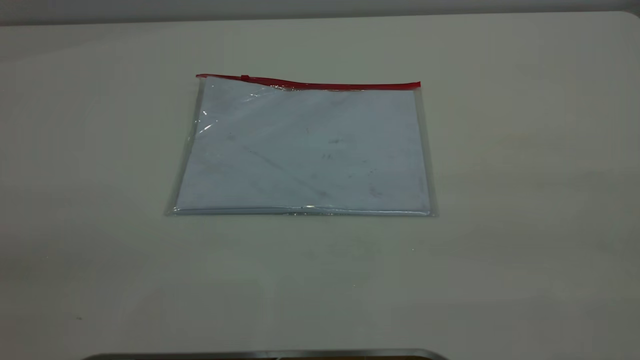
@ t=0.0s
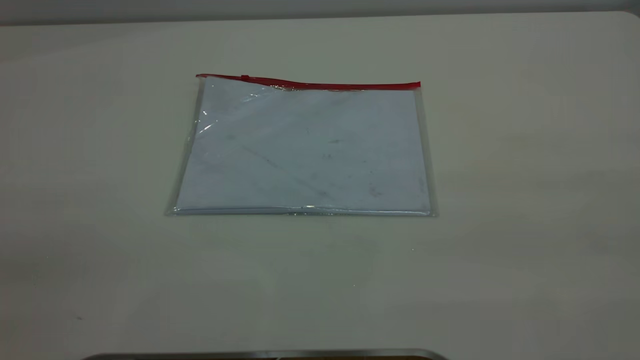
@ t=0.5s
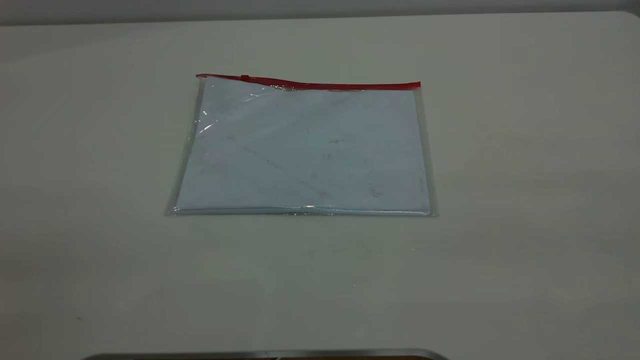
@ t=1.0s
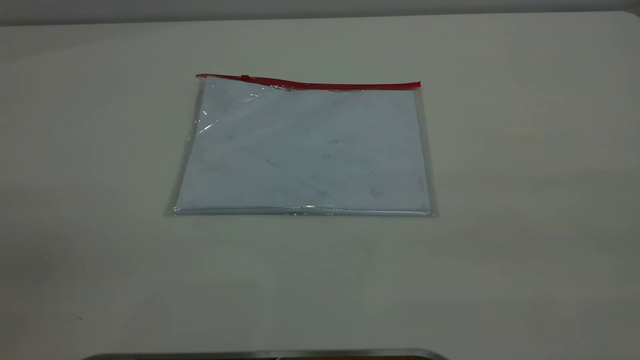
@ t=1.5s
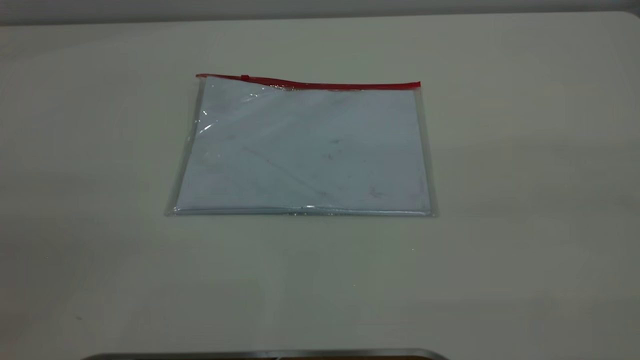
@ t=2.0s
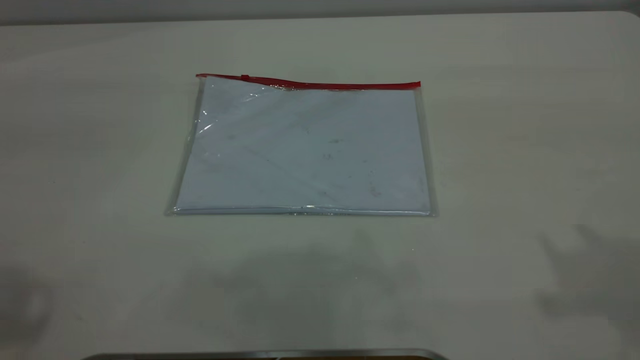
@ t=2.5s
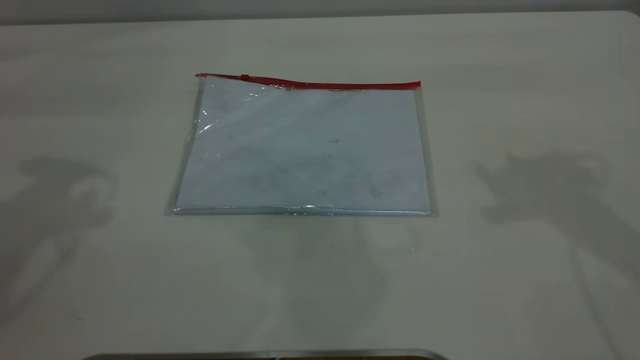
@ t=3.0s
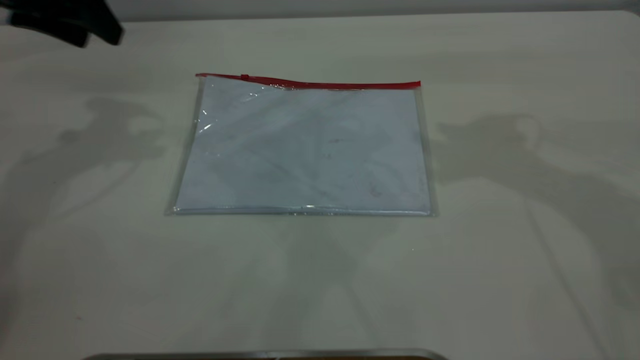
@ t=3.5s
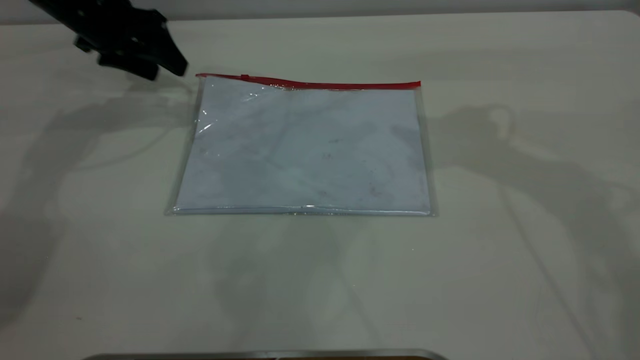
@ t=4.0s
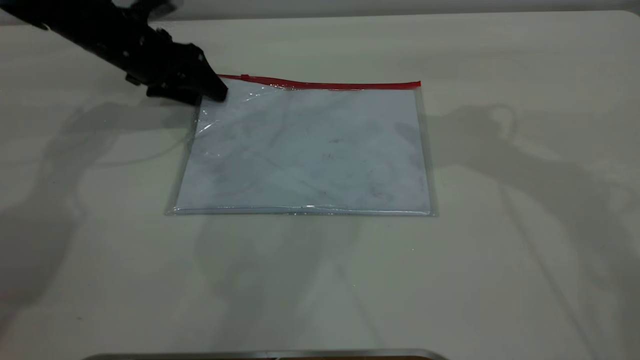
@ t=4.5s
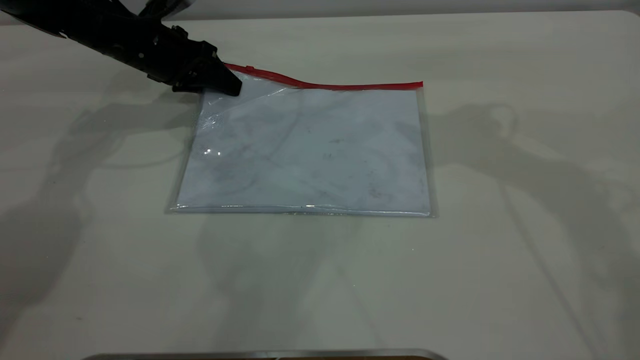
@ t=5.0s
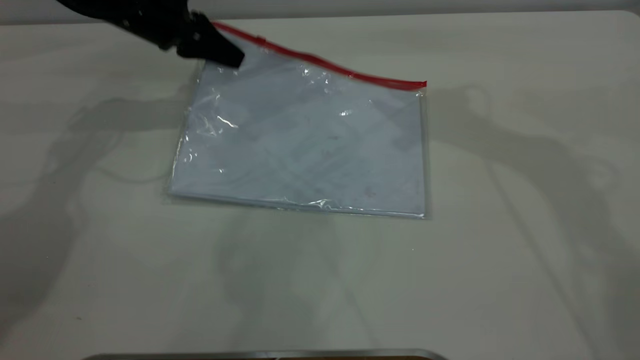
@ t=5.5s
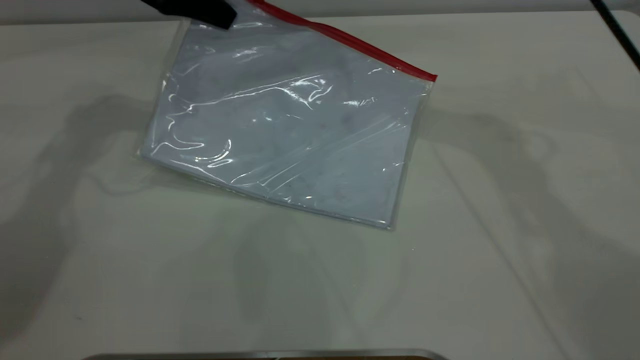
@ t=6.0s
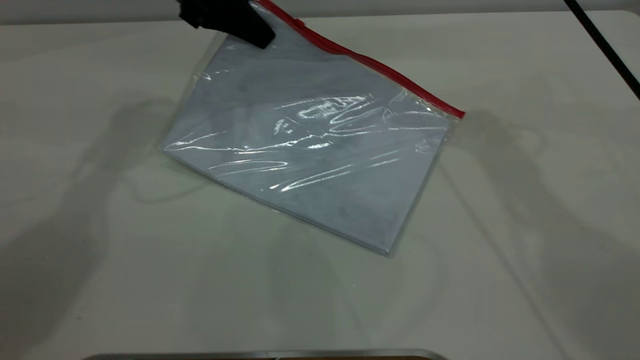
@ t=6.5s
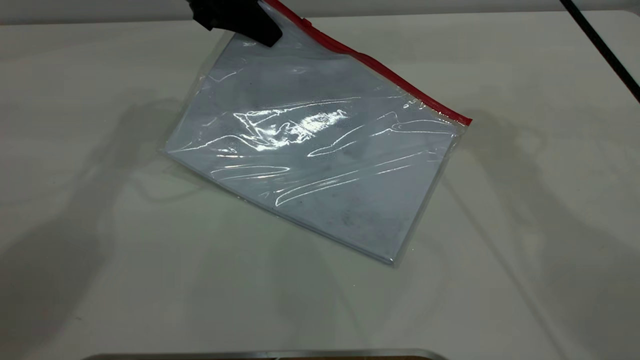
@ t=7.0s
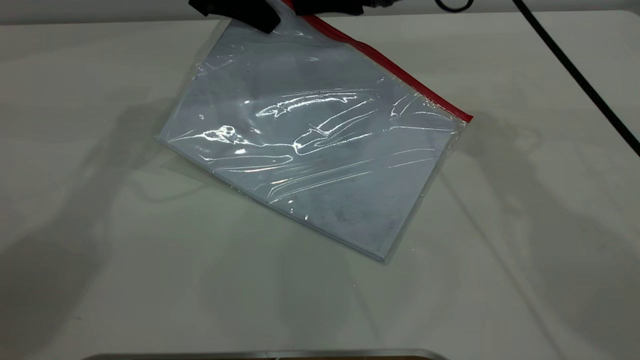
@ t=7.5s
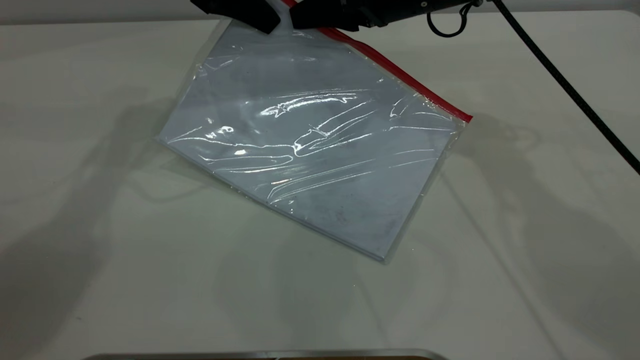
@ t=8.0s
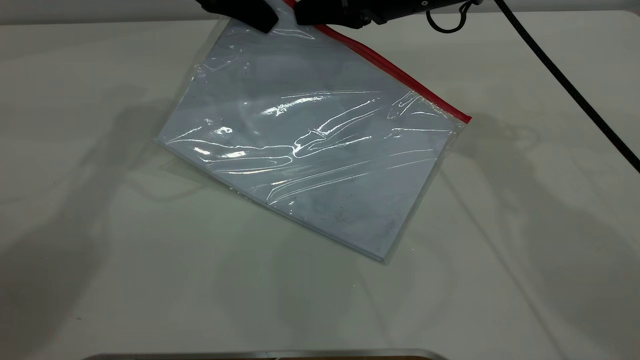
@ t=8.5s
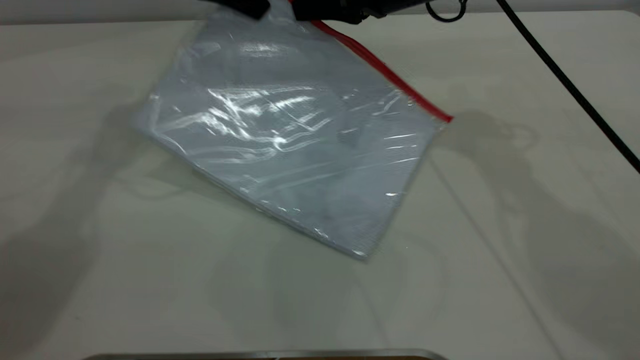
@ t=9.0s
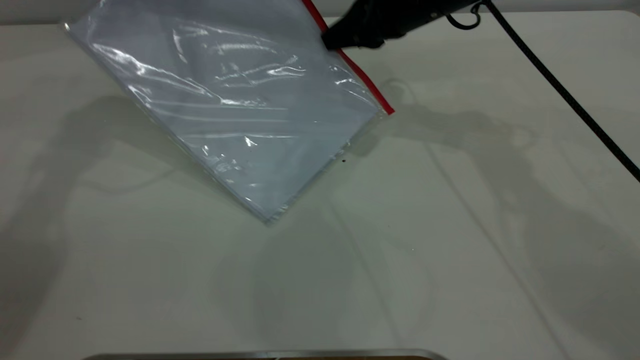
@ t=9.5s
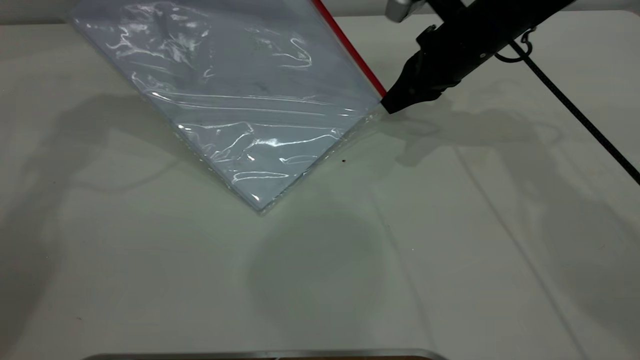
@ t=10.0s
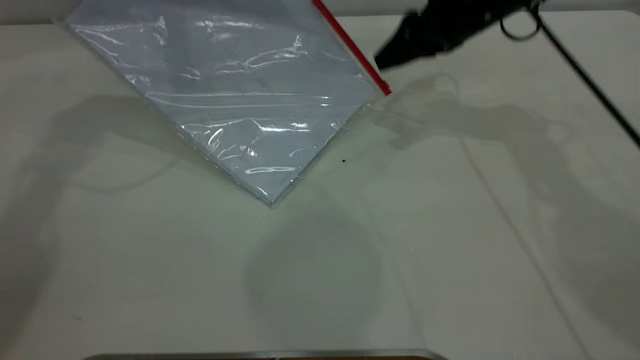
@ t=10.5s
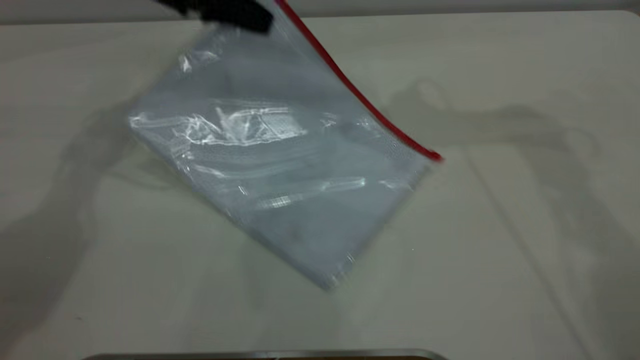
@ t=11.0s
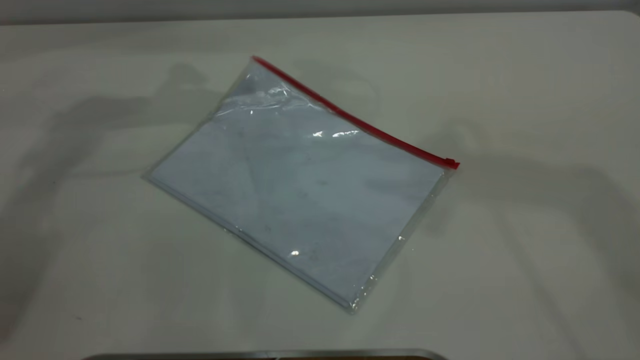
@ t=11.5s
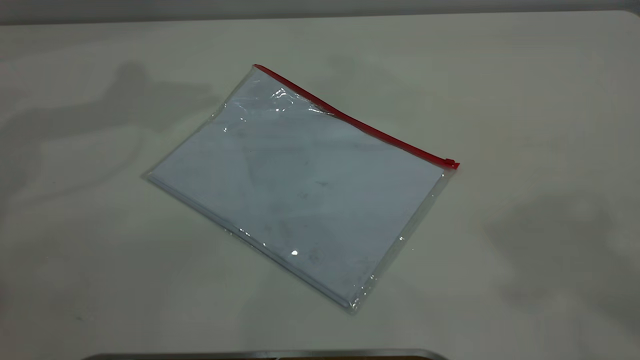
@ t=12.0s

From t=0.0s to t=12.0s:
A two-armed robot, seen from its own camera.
Step, from t=0.0s to t=5.0s: Pick up the transparent plastic bag with the left gripper.
Step, from t=5.5s to t=10.5s: Pulling up the zipper on the transparent plastic bag with the right gripper to close it.
Step, from t=11.0s to t=11.5s: Place the transparent plastic bag.
From t=2.0s to t=4.0s: The left gripper goes approximately 50 cm forward and downward.
From t=4.0s to t=6.0s: The left gripper shifts approximately 10 cm upward and to the right, and closes; the right gripper moves to the left and forward, some 10 cm.
From t=6.0s to t=8.0s: The right gripper travels downward by approximately 10 cm. Meanwhile the left gripper is displaced to the right by some 5 cm.
From t=8.0s to t=10.0s: The left gripper moves upward and to the left, some 10 cm; the right gripper shifts approximately 10 cm to the right and downward, and closes up.
From t=10.0s to t=12.0s: The right gripper shifts roughly 50 cm upward and backward, and opens up. Meanwhile the left gripper is displaced upward and to the left by some 15 cm, and opens its fingers.
